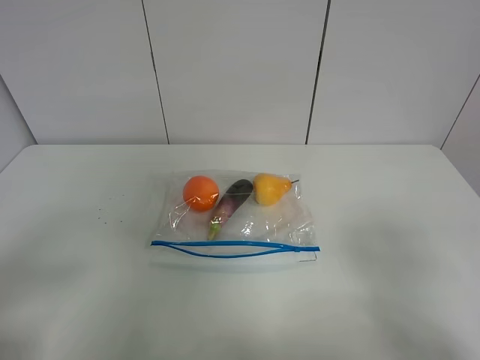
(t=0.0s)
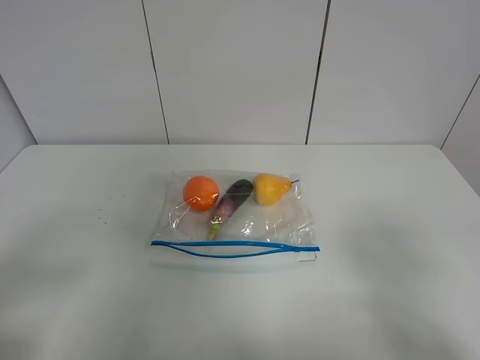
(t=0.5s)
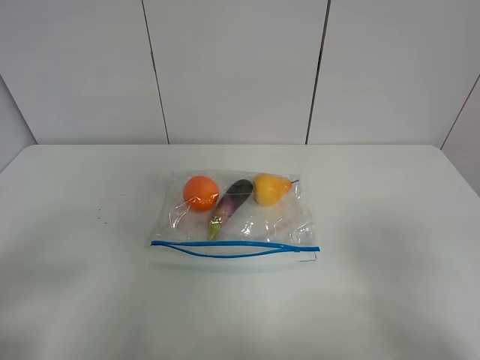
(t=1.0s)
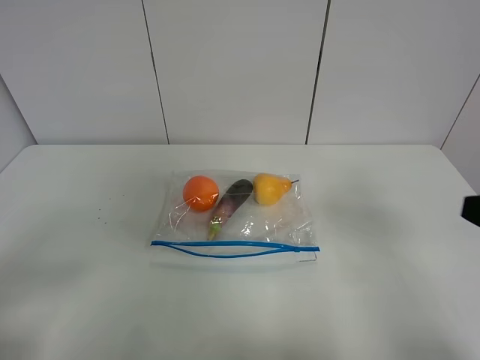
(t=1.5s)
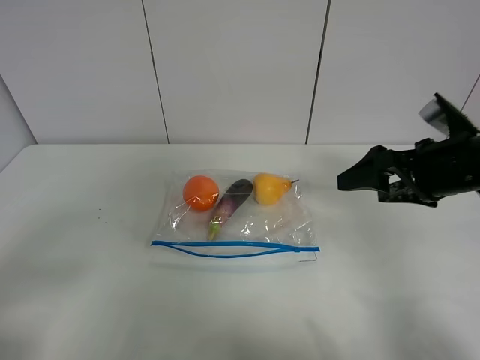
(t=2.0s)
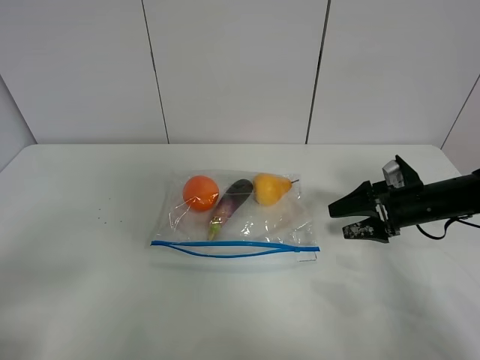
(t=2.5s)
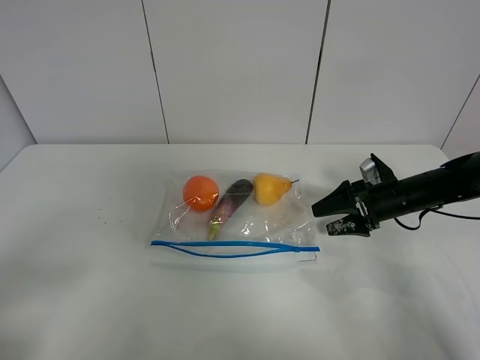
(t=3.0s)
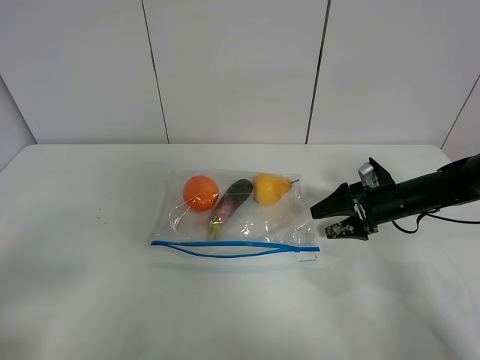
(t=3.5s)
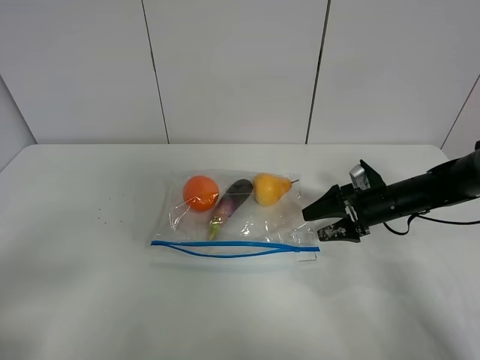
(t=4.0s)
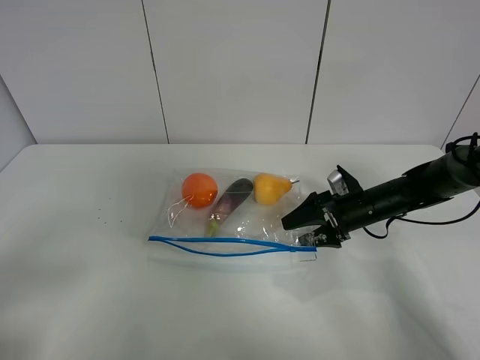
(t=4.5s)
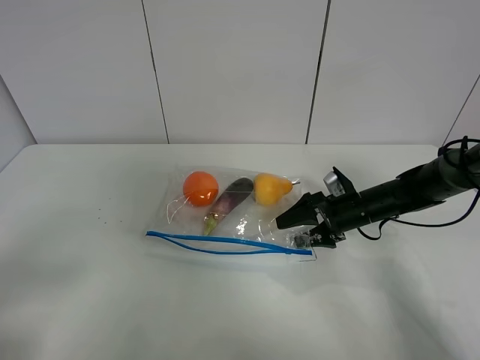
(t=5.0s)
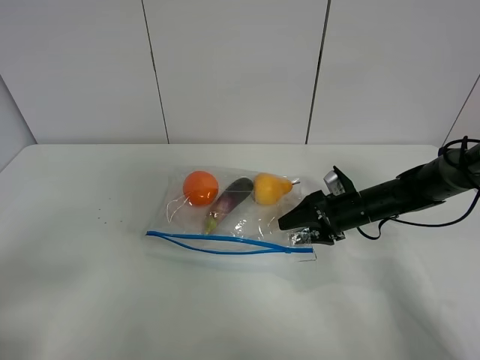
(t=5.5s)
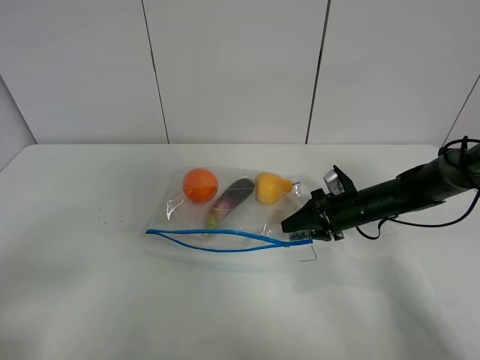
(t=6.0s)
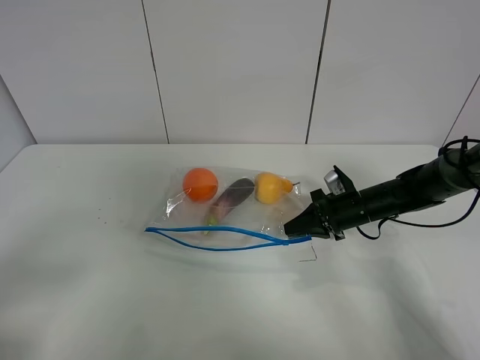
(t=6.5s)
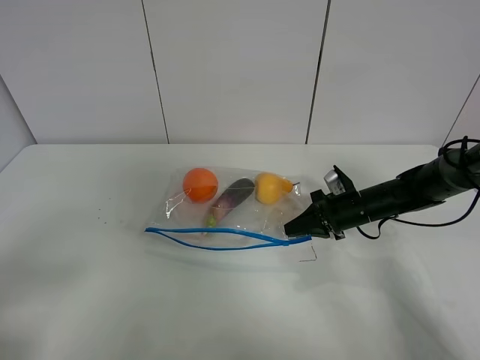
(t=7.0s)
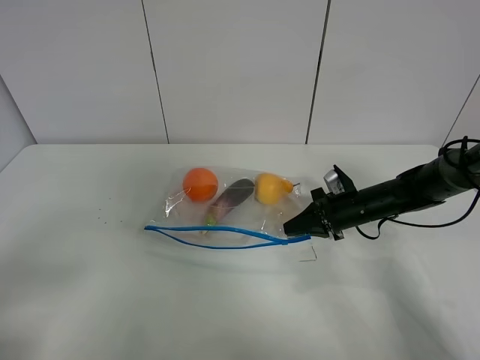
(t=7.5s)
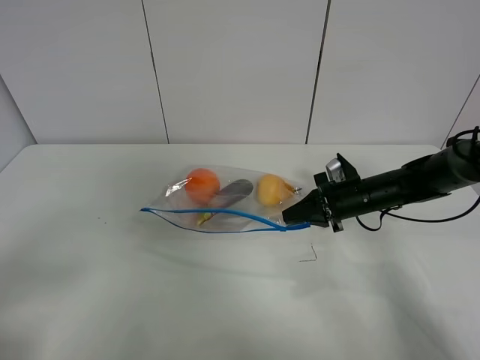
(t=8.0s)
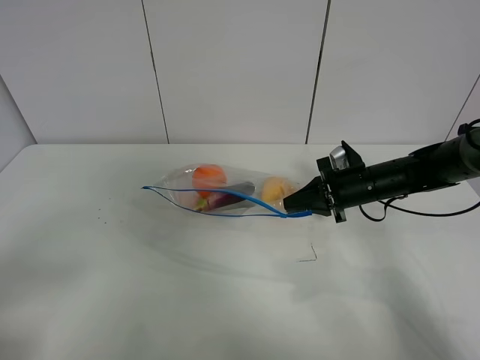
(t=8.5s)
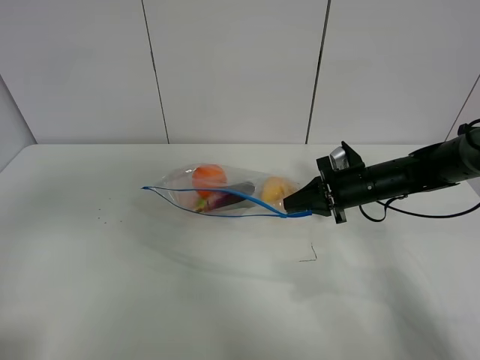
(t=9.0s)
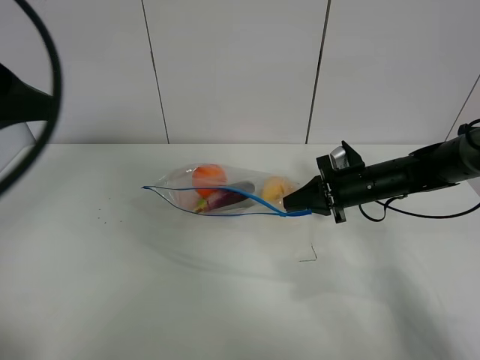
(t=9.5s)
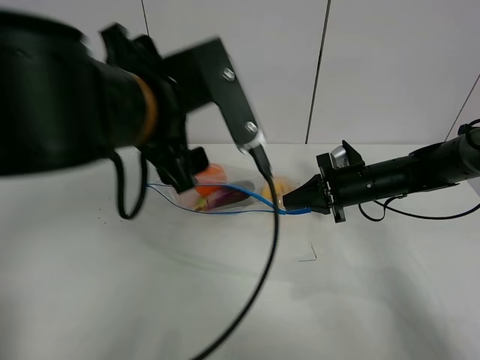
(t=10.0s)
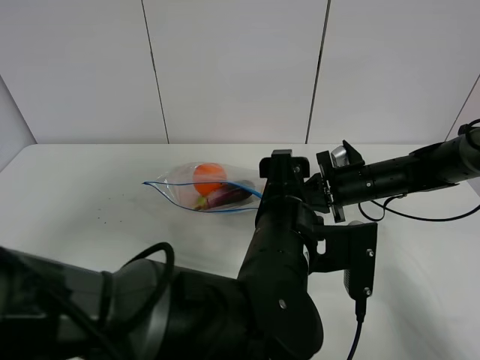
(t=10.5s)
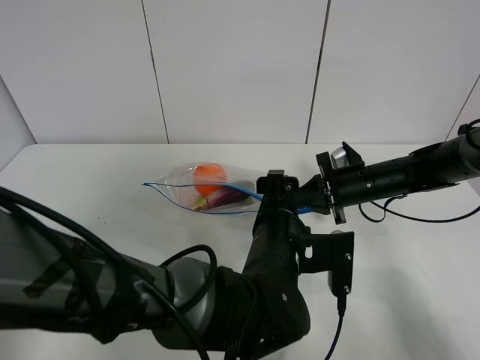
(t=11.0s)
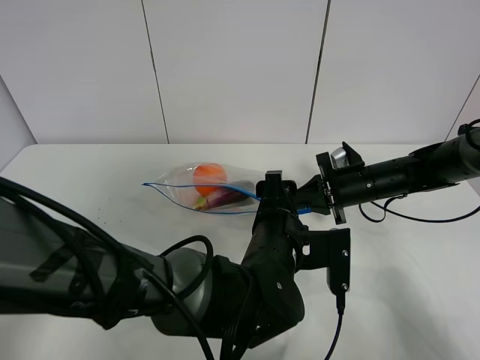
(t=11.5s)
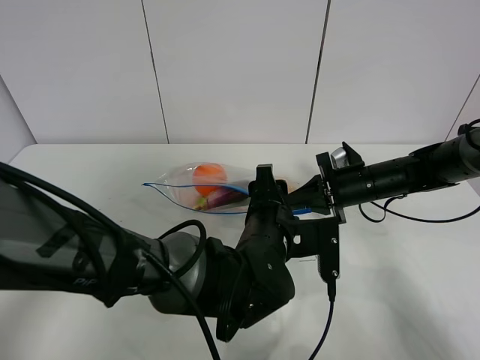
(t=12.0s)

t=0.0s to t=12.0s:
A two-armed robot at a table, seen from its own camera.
Step, t=0.0s to t=6.5s: Grasp the fruit bag with right gripper.
Step, t=7.0s to t=8.5s: Lift the fruit bag with your right gripper.
t=0.0s to t=2.0s: The right gripper moves forward, roughly 25 cm.
t=2.0s to t=4.0s: The right gripper heads downward and forward, covering about 15 cm.
t=4.0s to t=6.0s: The right gripper closes.
t=6.0s to t=8.0s: The right gripper closes its fingers.
t=8.0s to t=10.0s: The left gripper travels to the right and forward by roughly 35 cm.
t=10.0s to t=12.0s: The left gripper shifts roughly 20 cm downward and to the right.

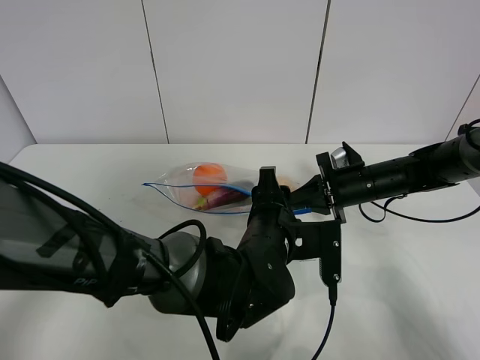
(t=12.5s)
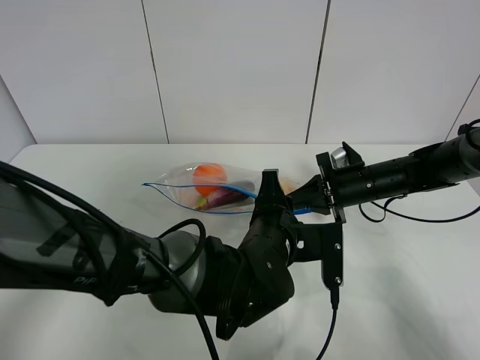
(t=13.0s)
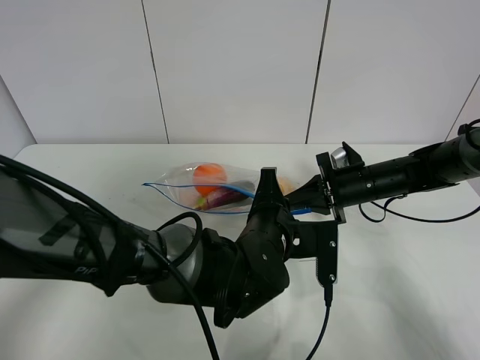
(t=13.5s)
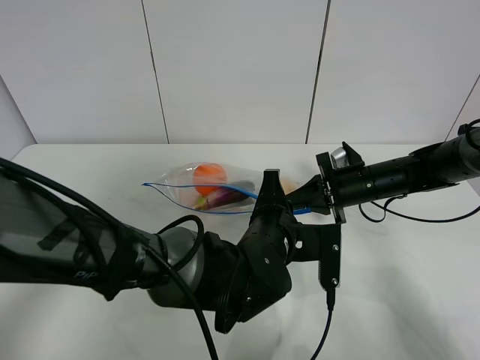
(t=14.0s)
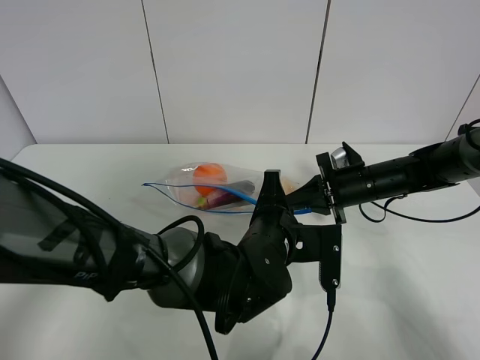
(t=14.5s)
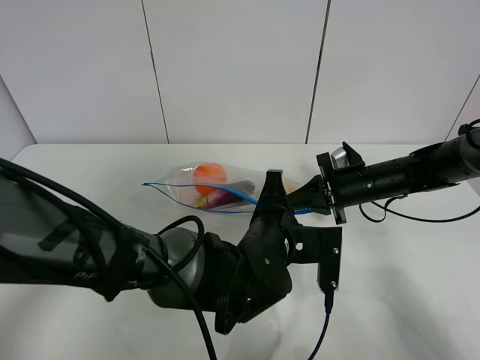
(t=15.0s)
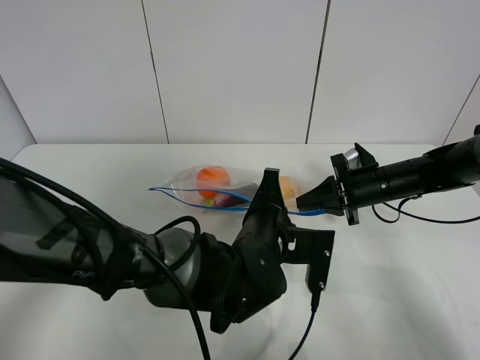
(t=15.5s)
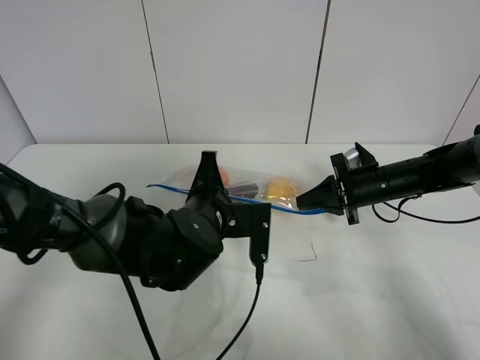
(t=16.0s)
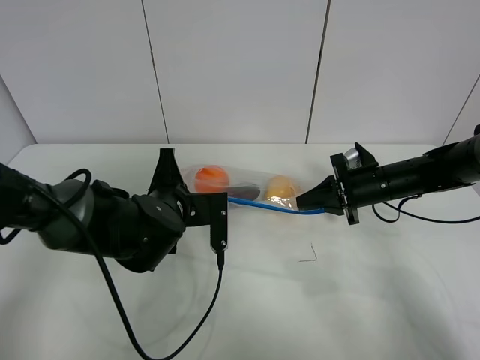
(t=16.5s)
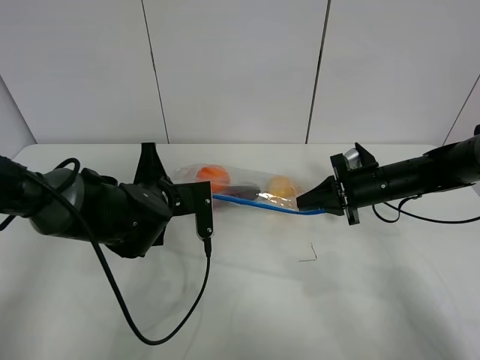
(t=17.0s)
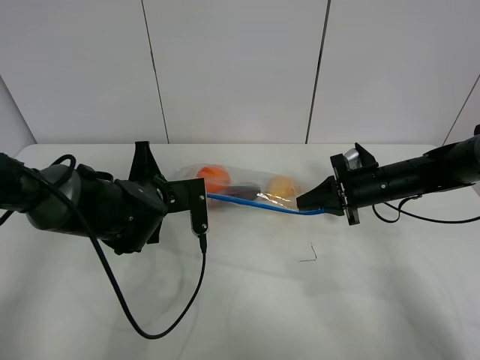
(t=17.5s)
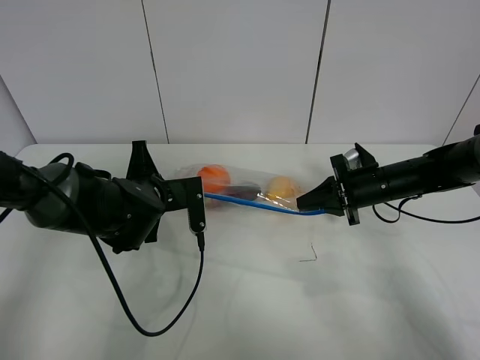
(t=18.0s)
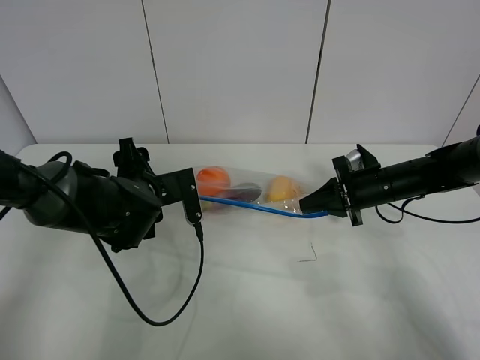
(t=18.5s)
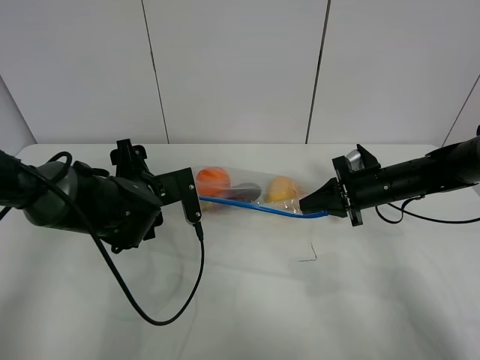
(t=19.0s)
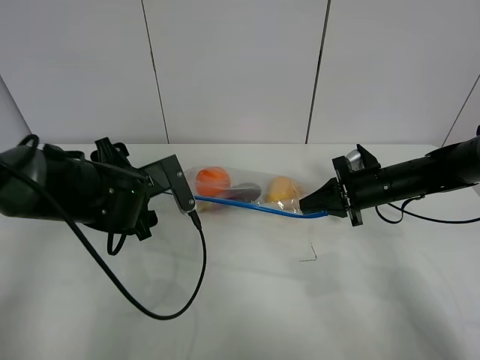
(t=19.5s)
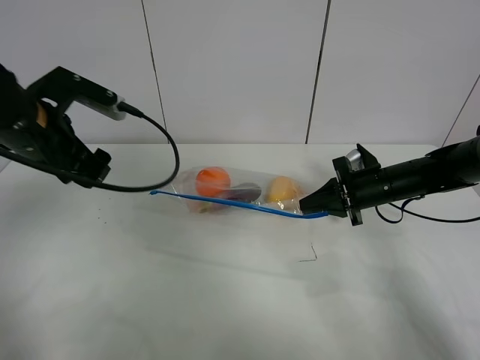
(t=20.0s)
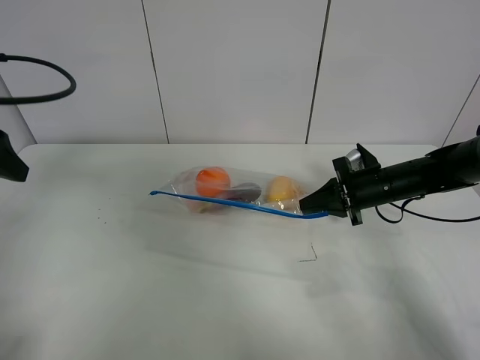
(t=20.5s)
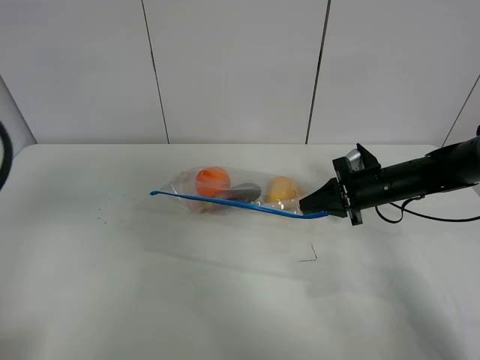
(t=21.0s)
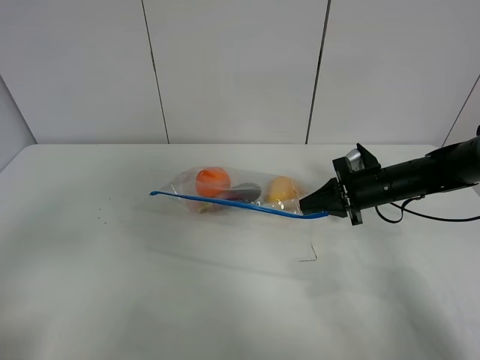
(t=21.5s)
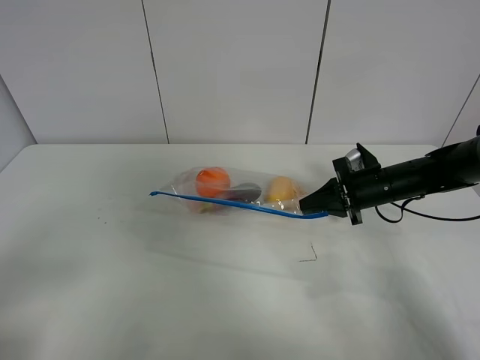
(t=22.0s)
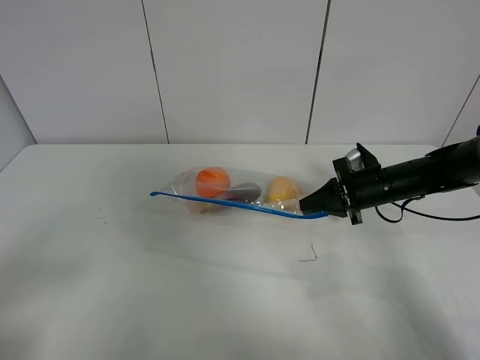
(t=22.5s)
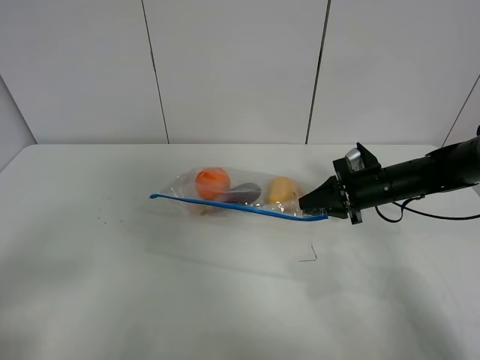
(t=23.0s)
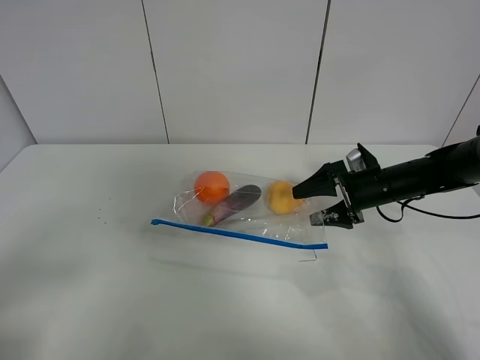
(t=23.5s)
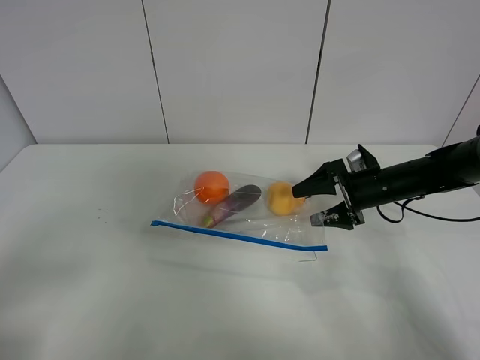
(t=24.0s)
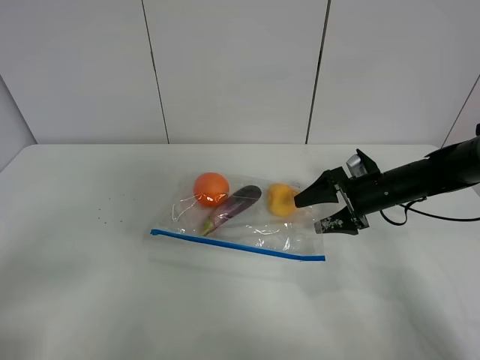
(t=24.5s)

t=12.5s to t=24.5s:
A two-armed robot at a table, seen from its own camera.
Step, t=12.5s to t=18.0s: Pull the fruit bag with left gripper.
t=12.5s to t=14.5s: The left gripper closes its fingers.
t=14.5s to t=16.5s: The left gripper heads to the left, covering some 15 cm.
t=16.5s to t=18.5s: The left gripper opens up.
t=18.5s to t=20.5s: The left gripper heads to the left and upward, covering some 25 cm.
t=20.5s to t=22.5s: The left gripper is displaced backward by approximately 20 cm.
t=22.5s to t=24.5s: The right gripper opens.

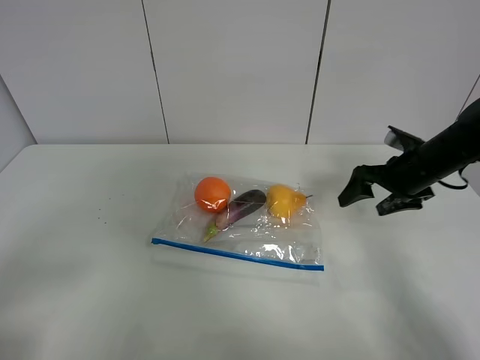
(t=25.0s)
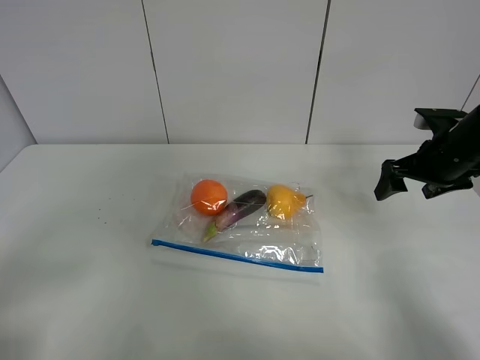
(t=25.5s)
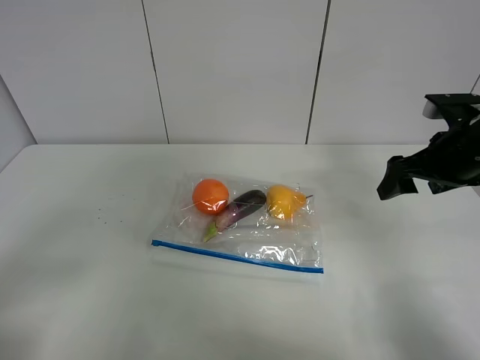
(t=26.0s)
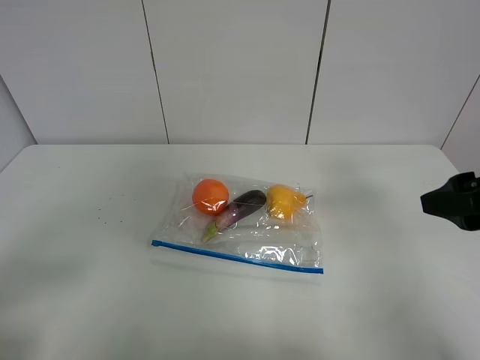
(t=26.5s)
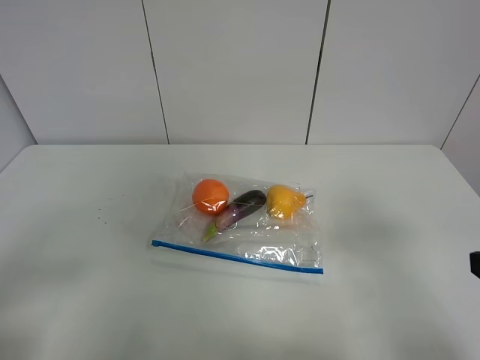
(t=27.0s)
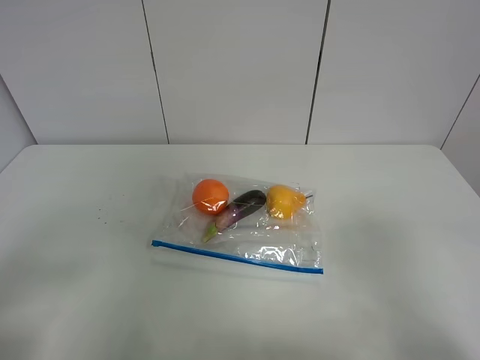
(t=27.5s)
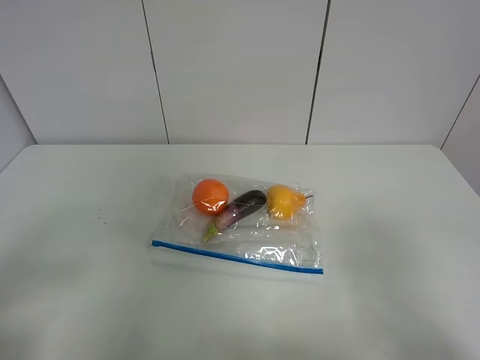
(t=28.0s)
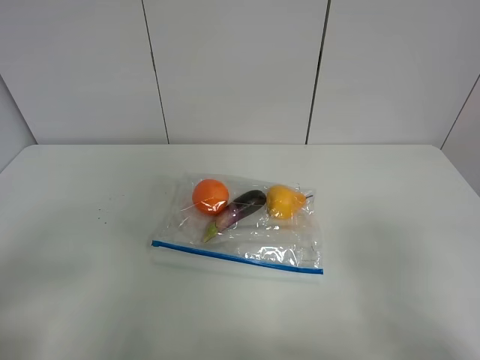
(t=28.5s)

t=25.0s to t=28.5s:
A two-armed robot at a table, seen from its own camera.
t=25.0s to t=27.0s: The right gripper goes roughly 30 cm backward.
